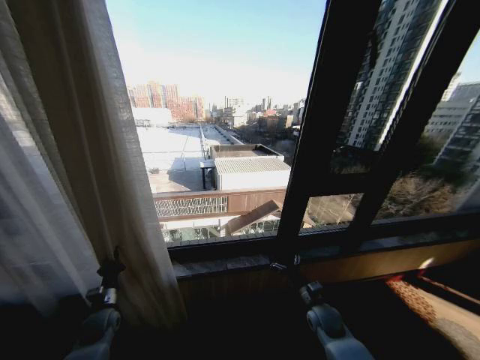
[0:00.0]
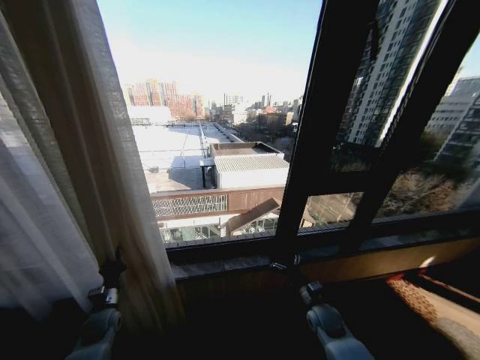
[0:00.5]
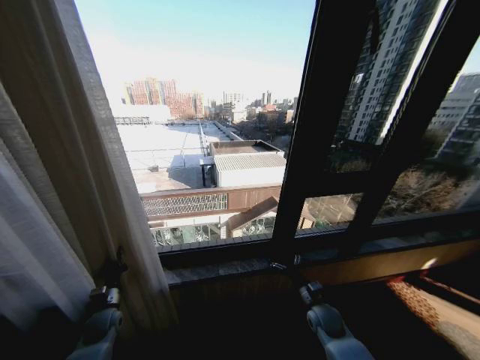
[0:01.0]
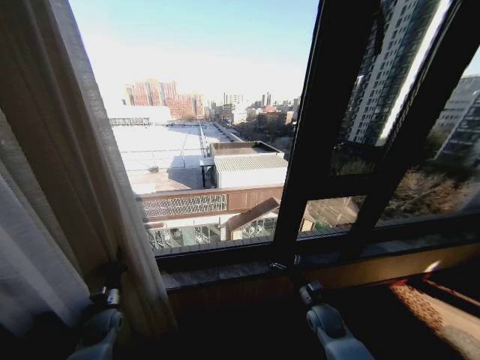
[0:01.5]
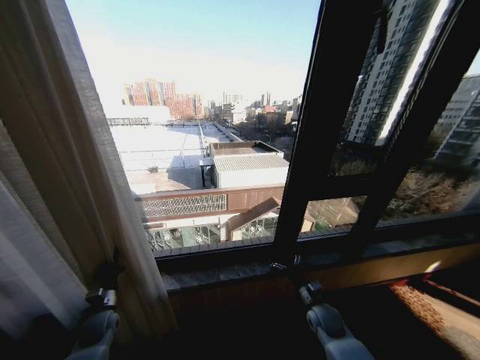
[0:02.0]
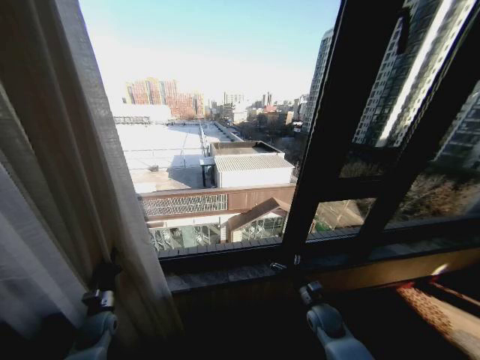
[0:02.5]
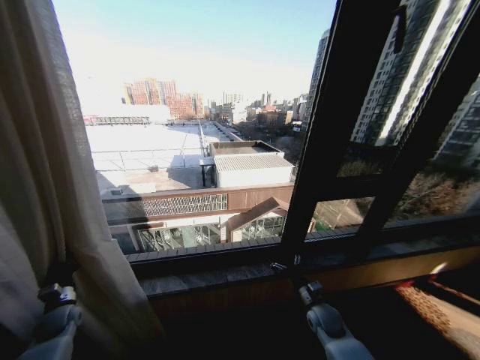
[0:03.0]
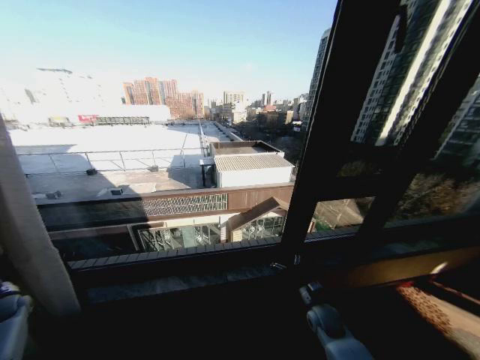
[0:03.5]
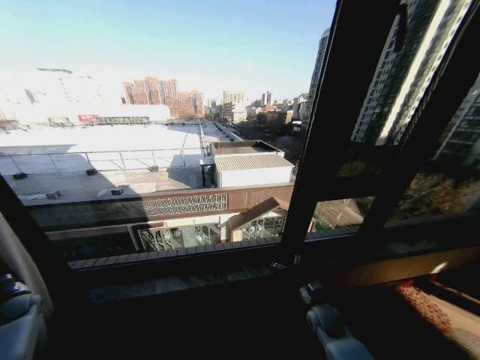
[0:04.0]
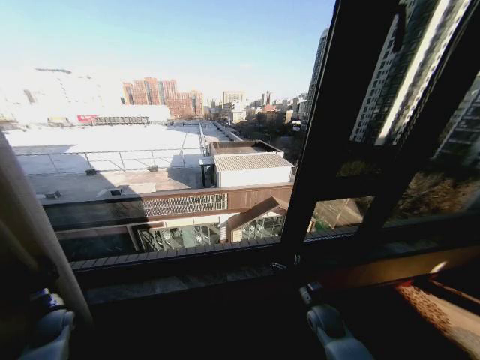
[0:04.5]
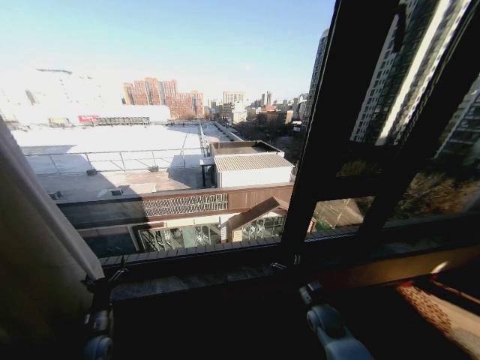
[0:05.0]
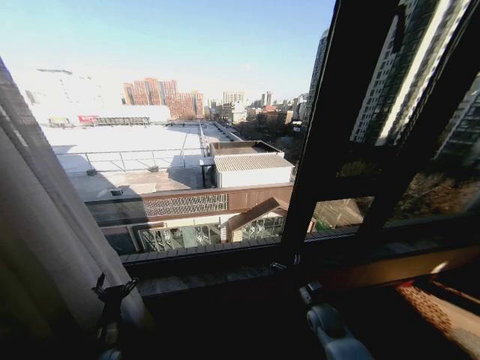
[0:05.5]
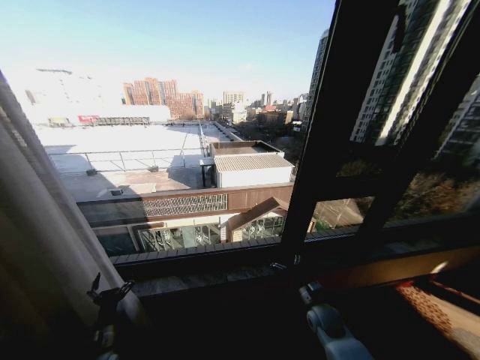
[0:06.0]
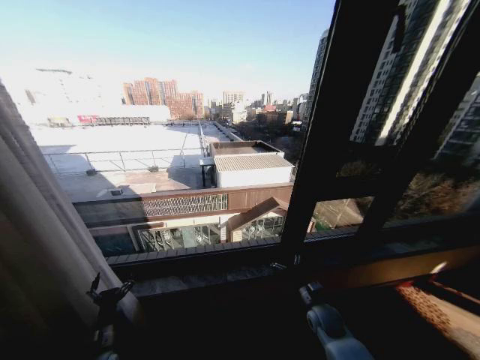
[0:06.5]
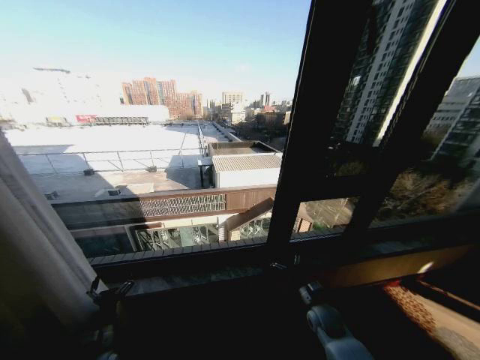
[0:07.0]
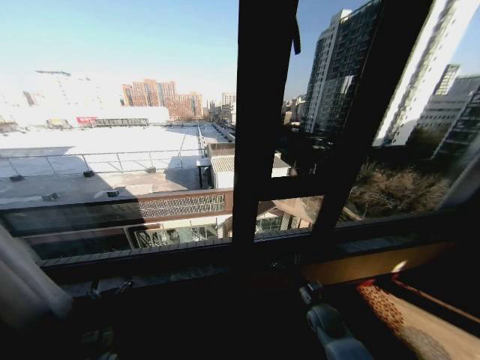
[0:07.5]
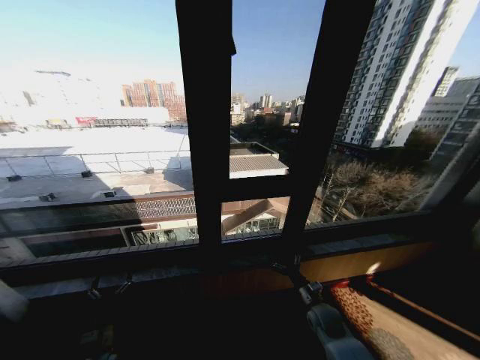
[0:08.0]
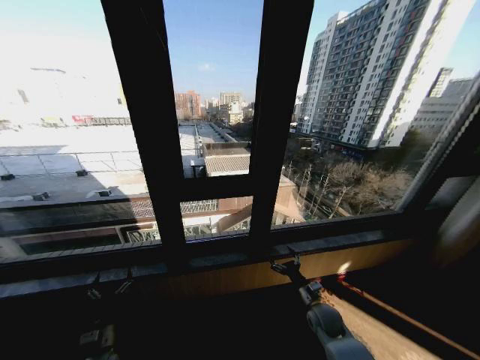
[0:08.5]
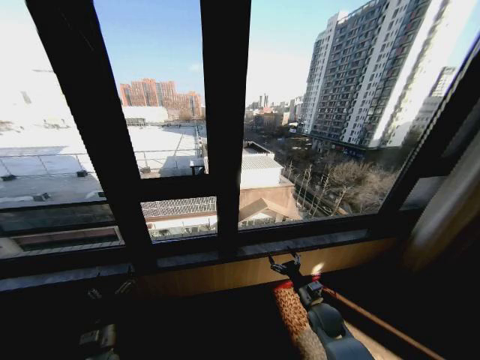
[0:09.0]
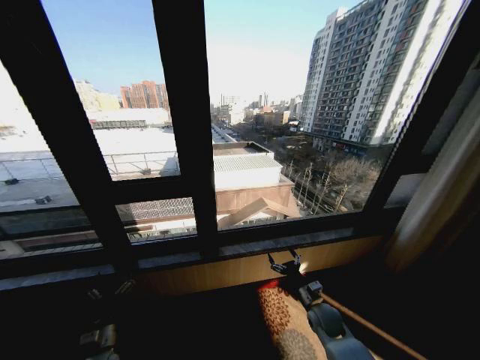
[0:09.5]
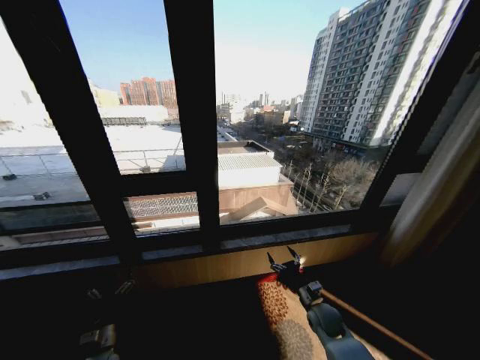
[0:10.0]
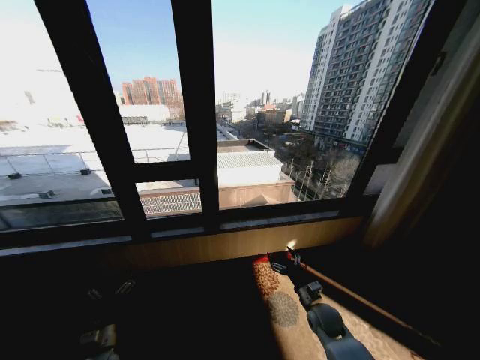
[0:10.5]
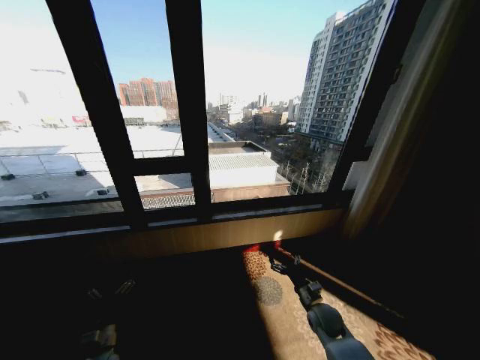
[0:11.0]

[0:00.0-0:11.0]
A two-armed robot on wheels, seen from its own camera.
Task of the whole recording: Open the curtains by pulling them apart, changing their state from closed to fully open.
0:02.0 to 0:03.5: The left gripper shifts roughly 25 cm to the left.
0:03.5 to 0:05.5: The left gripper travels to the right by roughly 30 cm, and opens its fingers.
